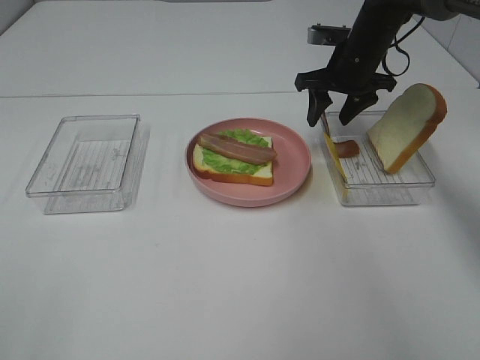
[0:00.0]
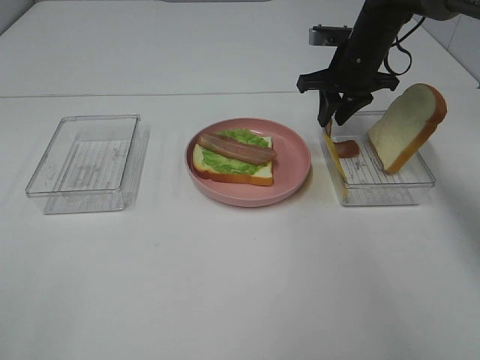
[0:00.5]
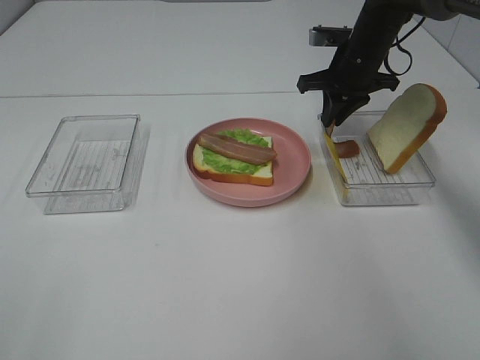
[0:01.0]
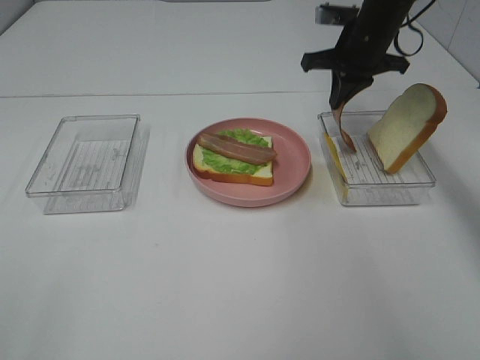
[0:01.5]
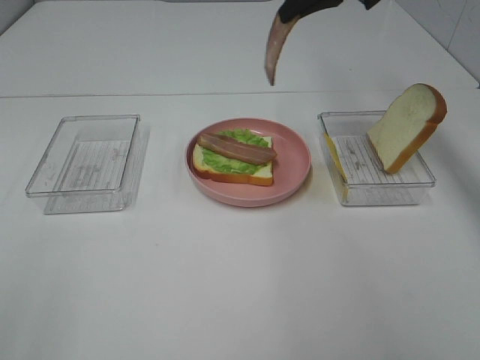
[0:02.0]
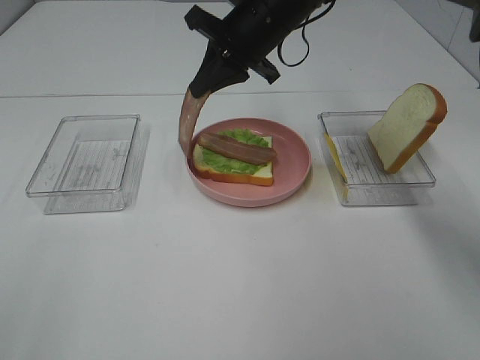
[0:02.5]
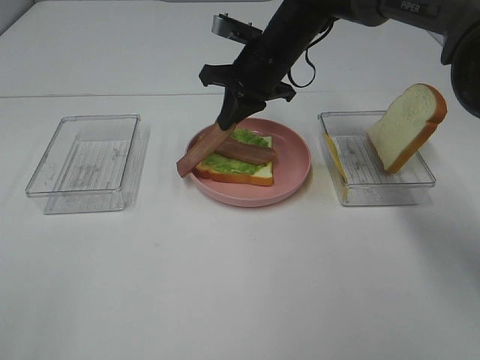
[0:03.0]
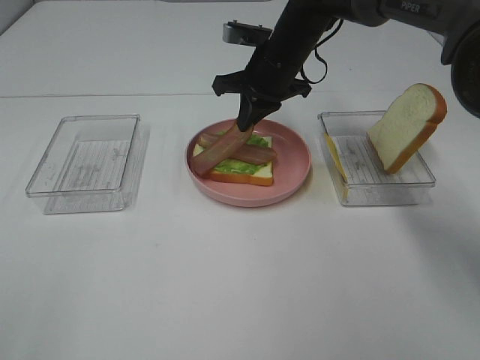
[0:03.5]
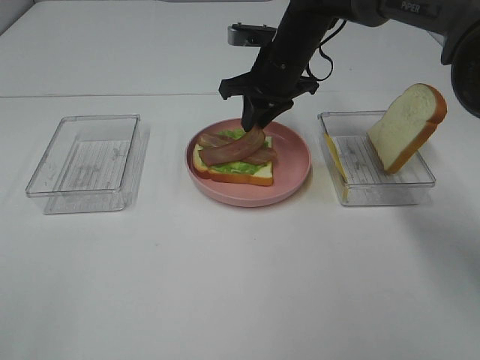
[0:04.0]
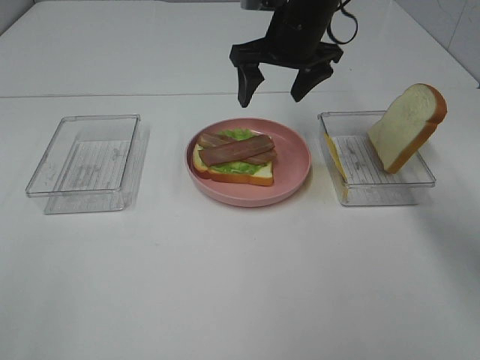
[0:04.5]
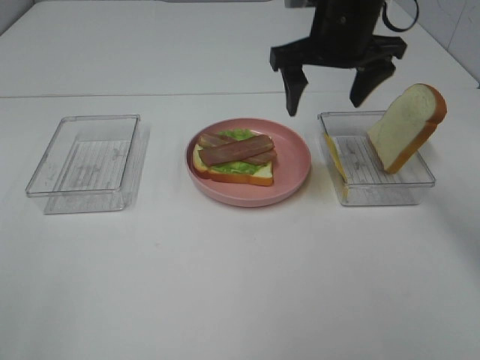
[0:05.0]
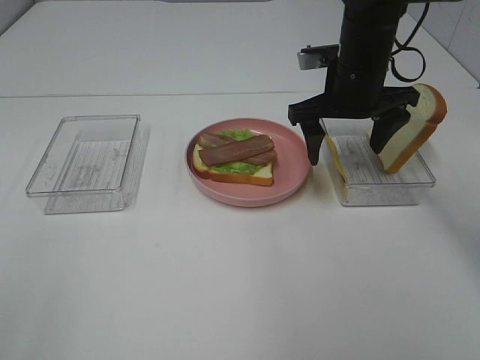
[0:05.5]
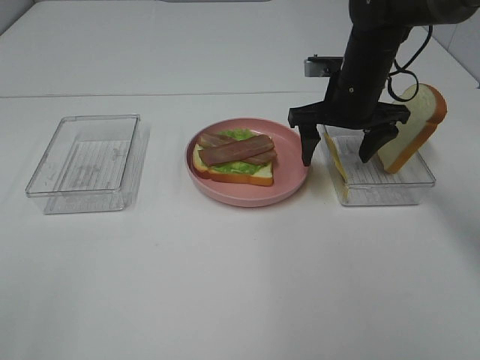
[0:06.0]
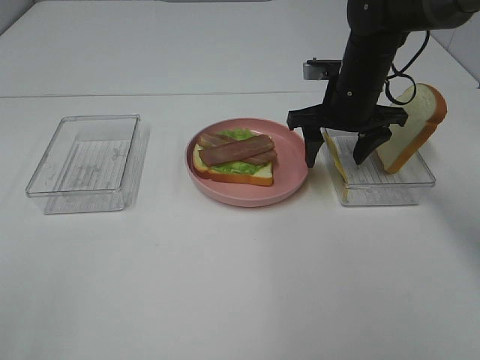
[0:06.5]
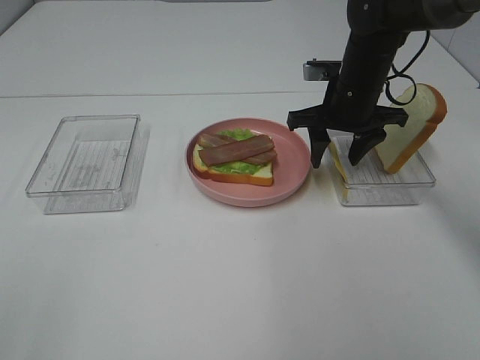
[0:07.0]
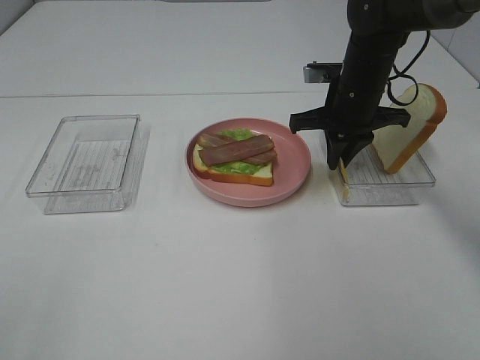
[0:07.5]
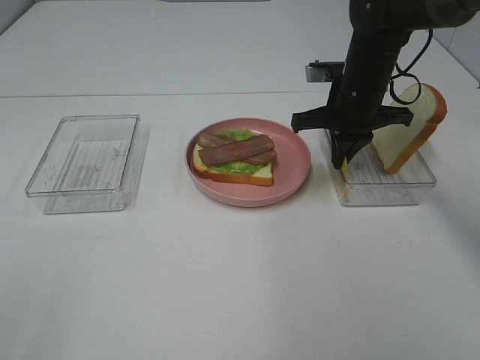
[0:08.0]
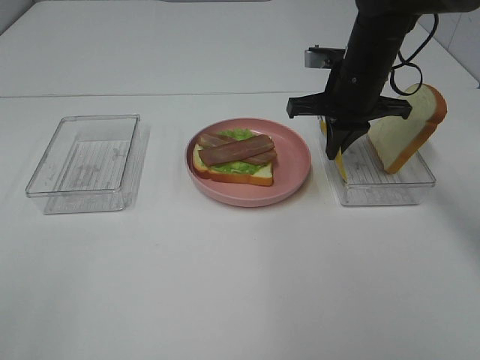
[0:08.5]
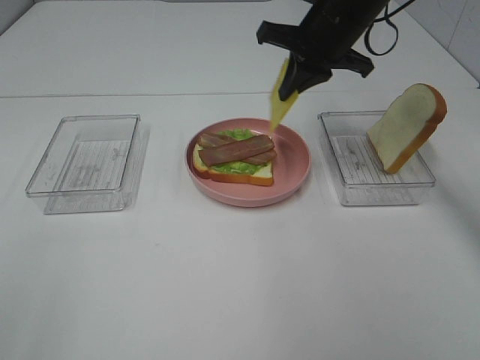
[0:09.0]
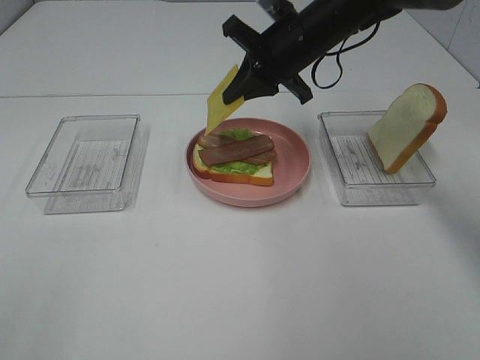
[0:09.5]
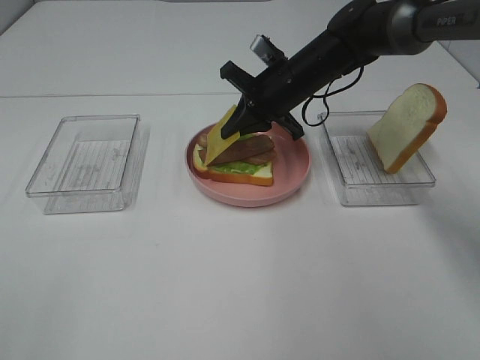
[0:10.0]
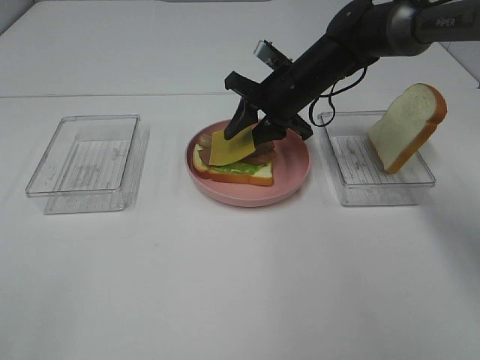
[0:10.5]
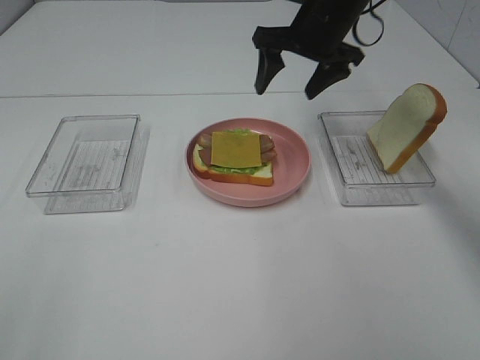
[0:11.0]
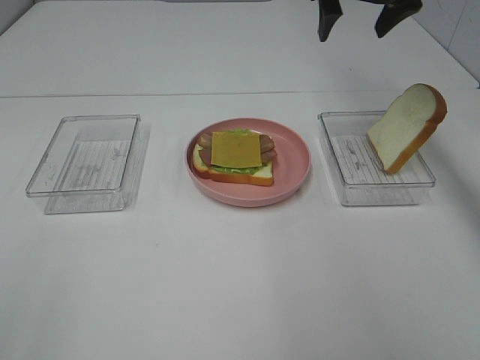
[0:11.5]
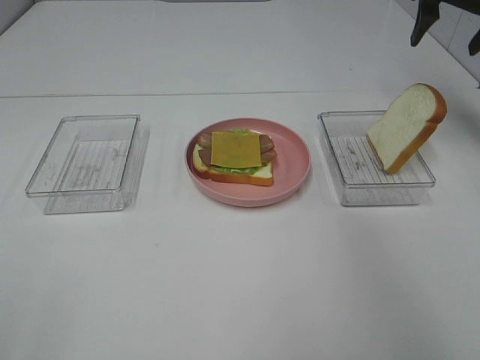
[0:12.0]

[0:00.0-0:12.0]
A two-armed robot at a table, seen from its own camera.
Task of the whole recording: Make sandwiches.
Step, 0:01.0 to 0:04.5: Right hand:place bacon on bacon.
Step, 0:05.0 to 0:08.0: Right hand:grab the cheese slice.
Step, 0:08.5 to 0:11.0: Right hand:place the cheese slice on top of the bacon.
0:00.0 to 0:02.0: The right gripper shifts some 15 cm upward, and closes up.
0:02.0 to 0:04.0: The right gripper moves downward and to the left, roughly 15 cm, and opens its fingers.
0:04.0 to 0:06.0: The right gripper moves to the right, approximately 10 cm, and opens.
0:06.0 to 0:08.0: The right gripper closes.
0:08.0 to 0:10.0: The right gripper shifts some 5 cm to the left, and goes upward and returns, some 10 cm each way.
0:10.0 to 0:12.0: The right gripper goes approximately 25 cm to the right and upward, and opens.

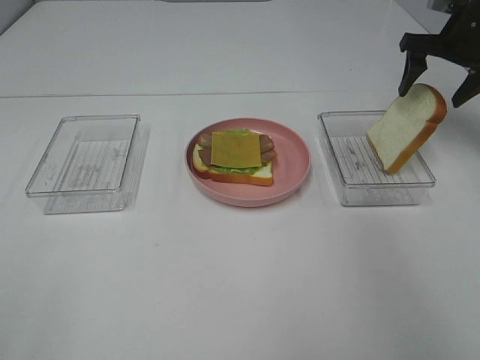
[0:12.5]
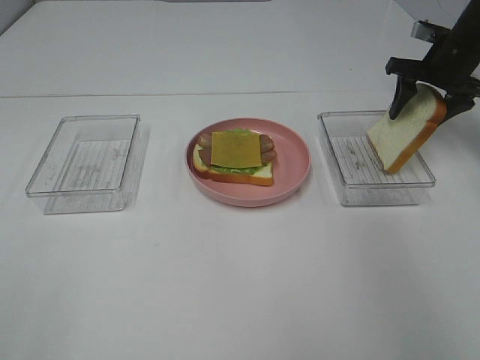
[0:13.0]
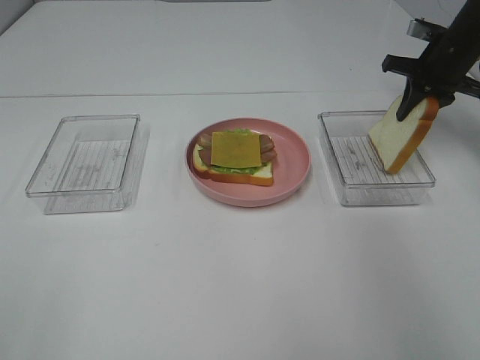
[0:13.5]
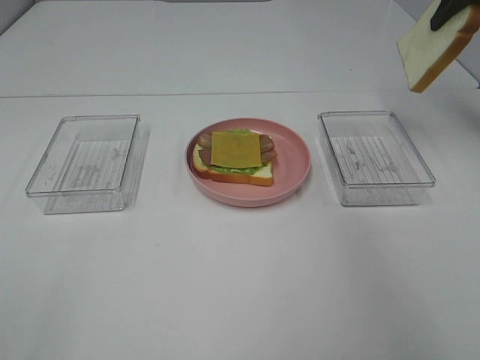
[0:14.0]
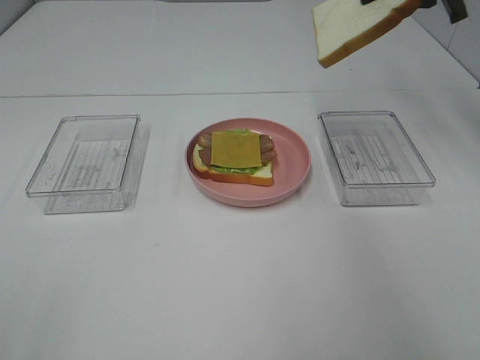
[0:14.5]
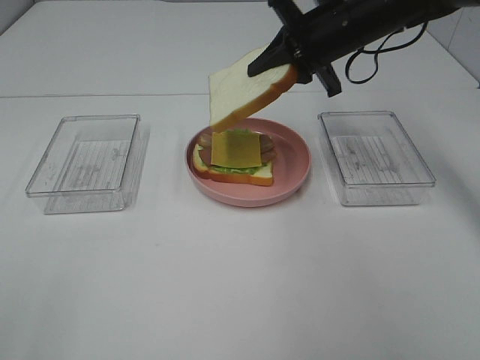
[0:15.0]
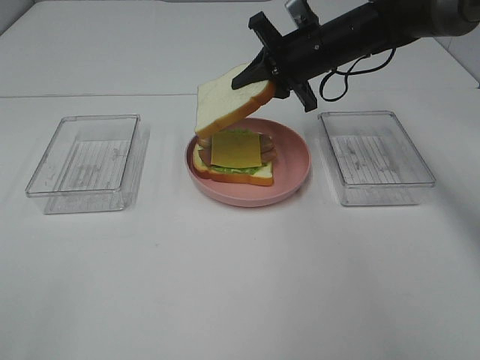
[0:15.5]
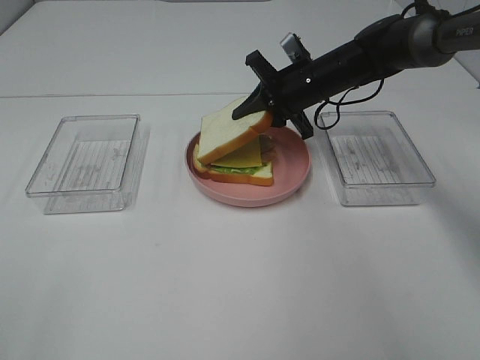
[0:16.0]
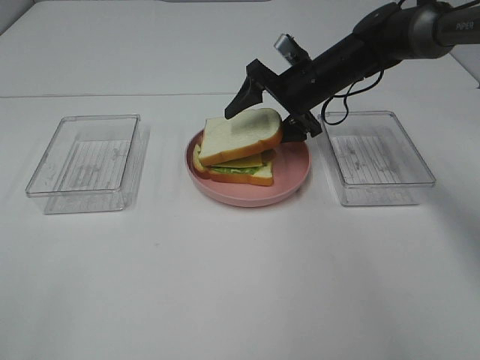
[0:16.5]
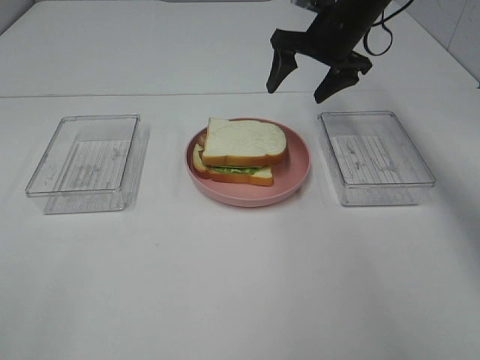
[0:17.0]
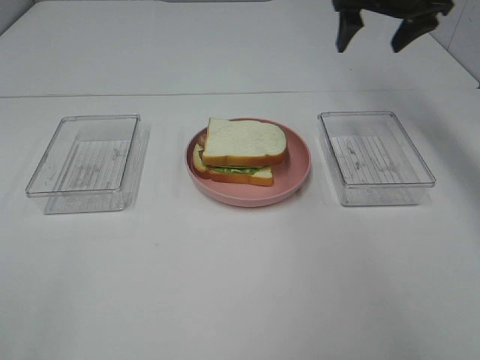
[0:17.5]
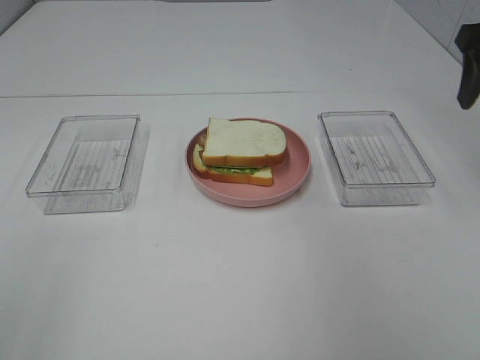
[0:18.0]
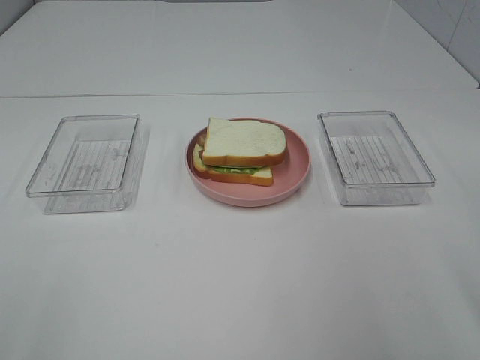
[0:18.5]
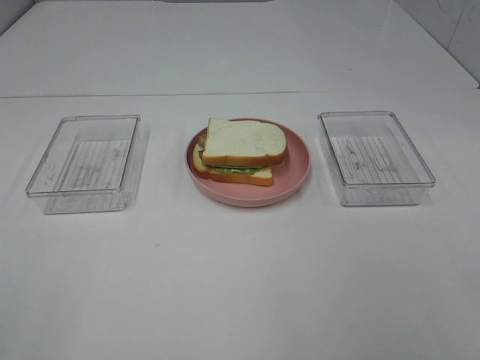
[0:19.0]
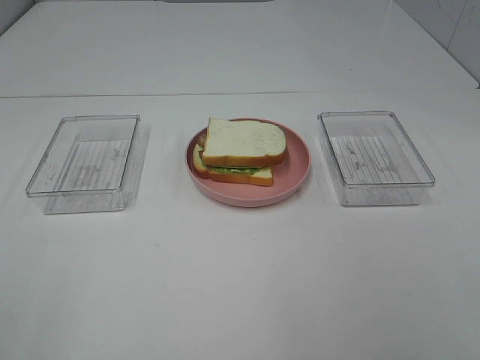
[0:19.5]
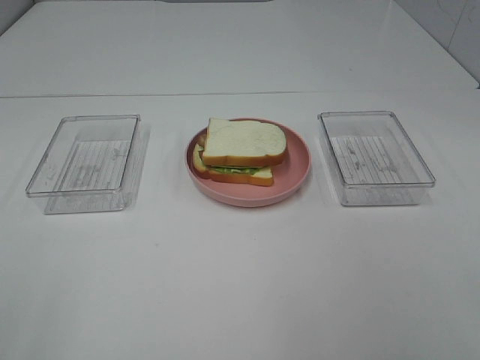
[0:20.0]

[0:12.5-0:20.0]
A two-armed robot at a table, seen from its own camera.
Task of the whole recording: Make sandwiches.
Step, 0:13.5 to 0:16.5: Right hand:place the bread slice on the cheese slice.
0:12.5 to 0:14.5: The right gripper goes about 10 cm upward and to the left, and closes up.
0:14.5 to 0:16.5: The right gripper goes approximately 20 cm downward and to the left, and opens.
0:16.5 to 0:18.0: The right gripper travels to the right, upward and backward by roughly 30 cm.
0:18.0 to 0:20.0: The right gripper is displaced backward by approximately 35 cm.
